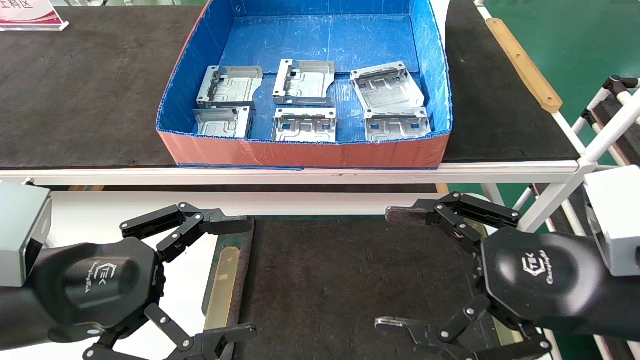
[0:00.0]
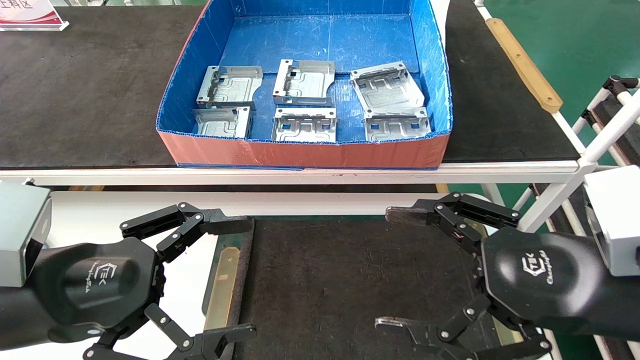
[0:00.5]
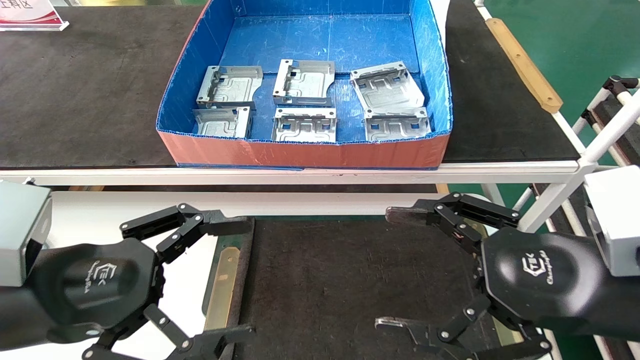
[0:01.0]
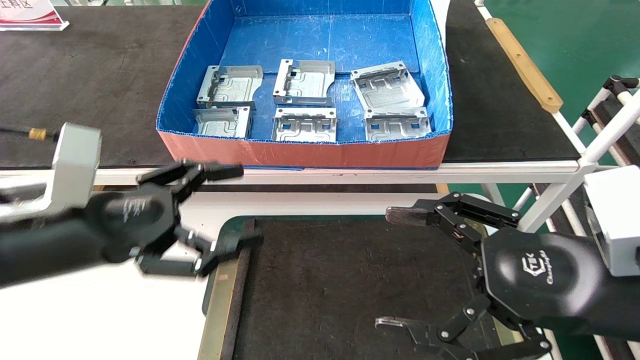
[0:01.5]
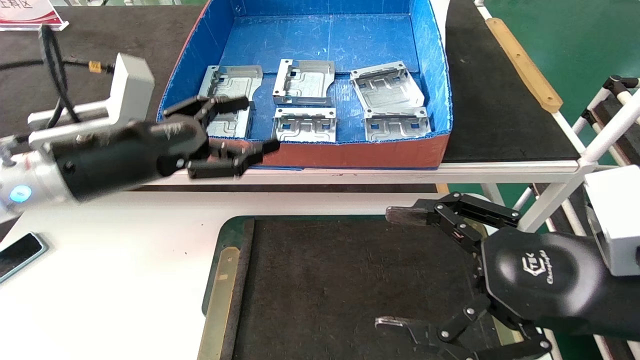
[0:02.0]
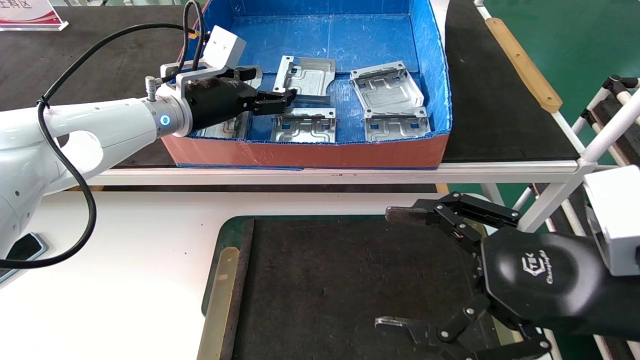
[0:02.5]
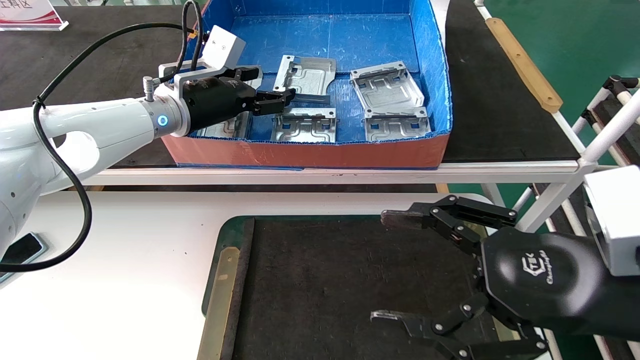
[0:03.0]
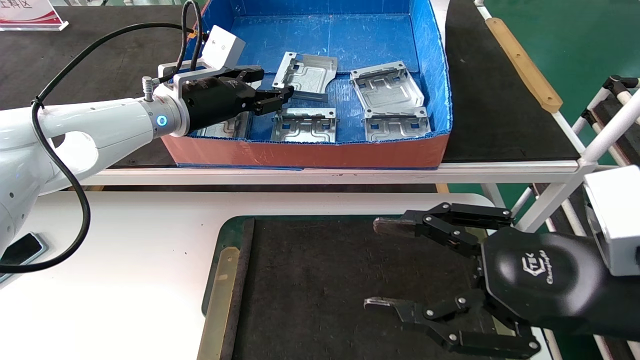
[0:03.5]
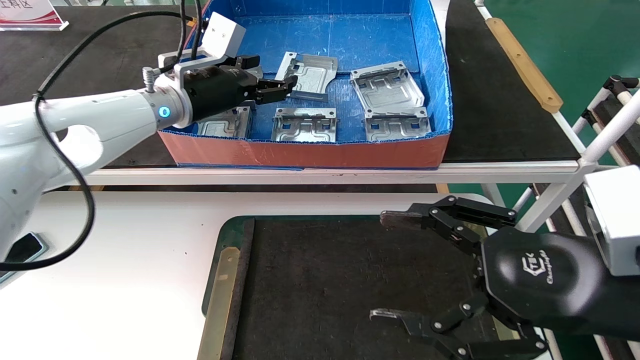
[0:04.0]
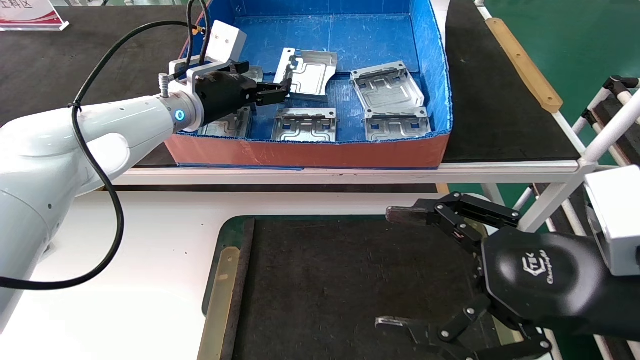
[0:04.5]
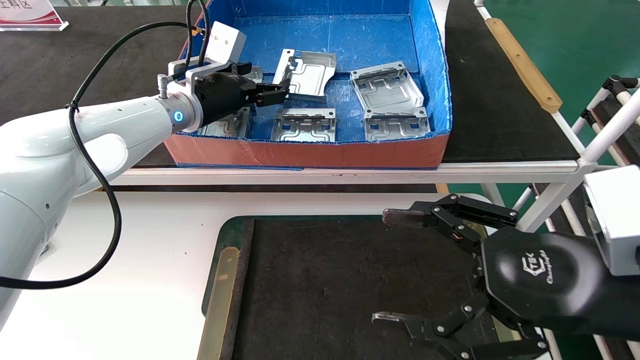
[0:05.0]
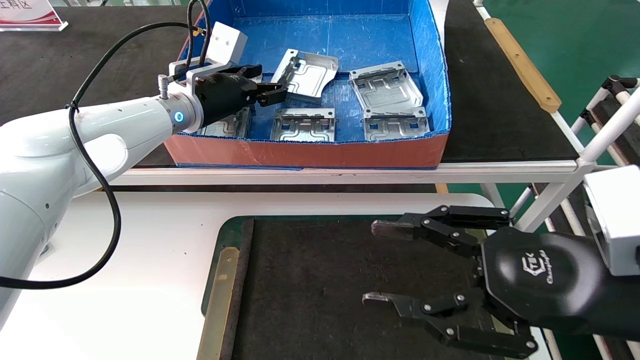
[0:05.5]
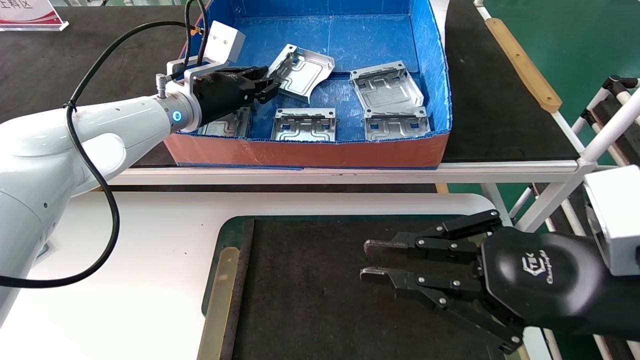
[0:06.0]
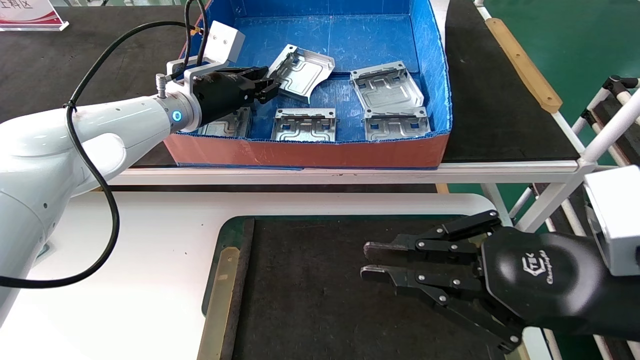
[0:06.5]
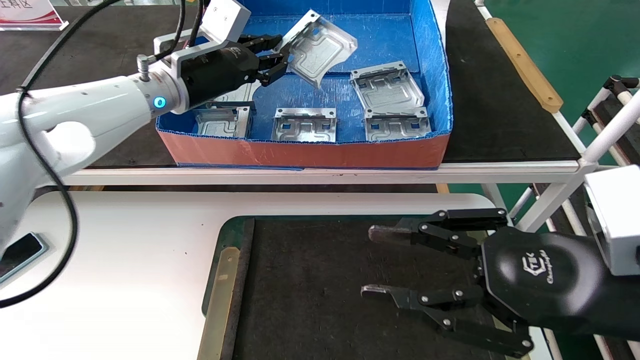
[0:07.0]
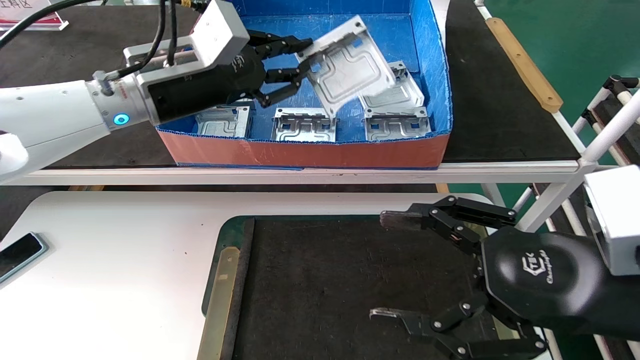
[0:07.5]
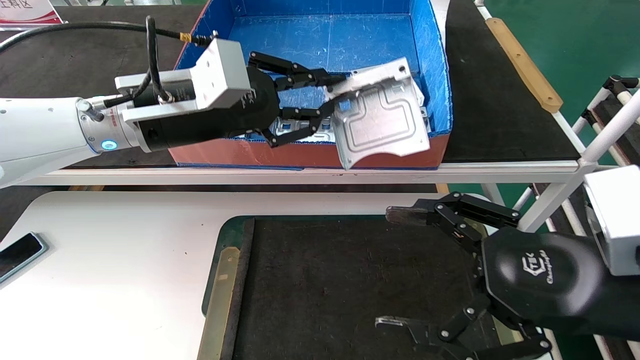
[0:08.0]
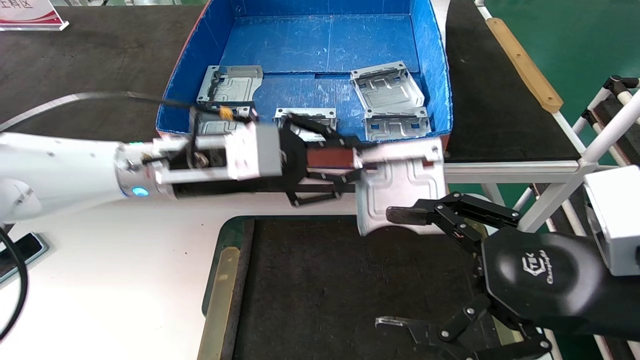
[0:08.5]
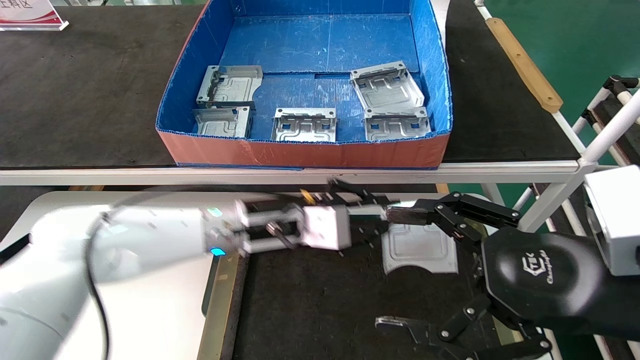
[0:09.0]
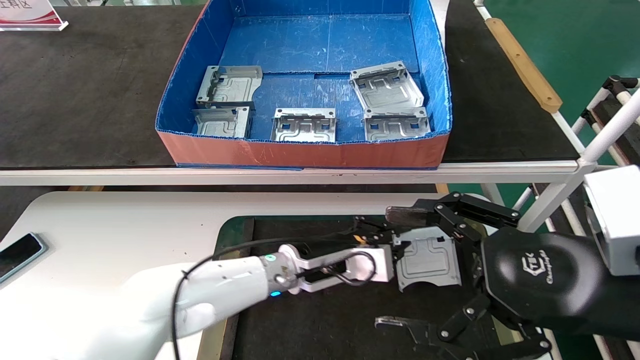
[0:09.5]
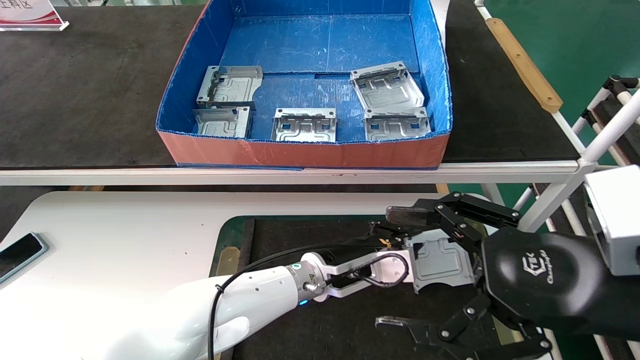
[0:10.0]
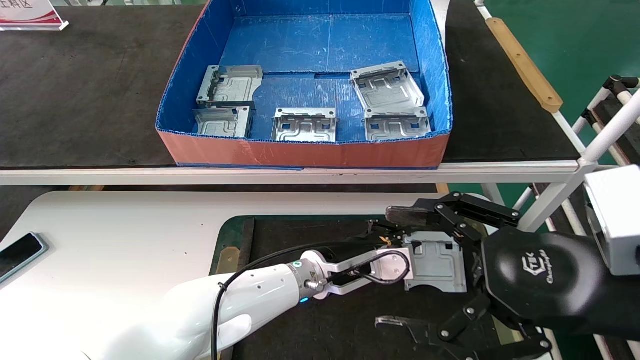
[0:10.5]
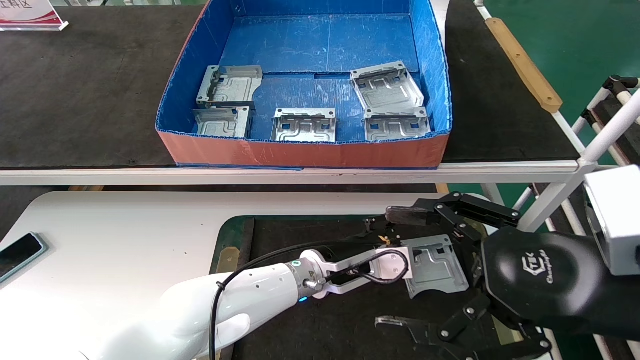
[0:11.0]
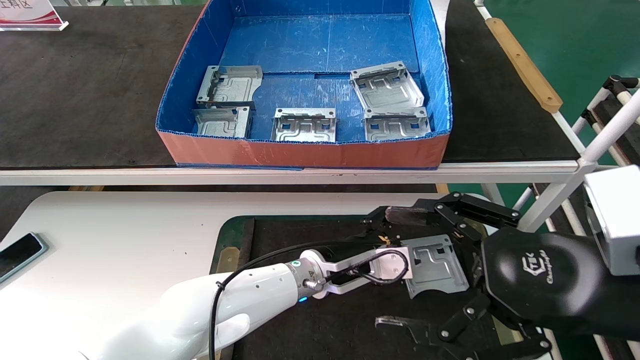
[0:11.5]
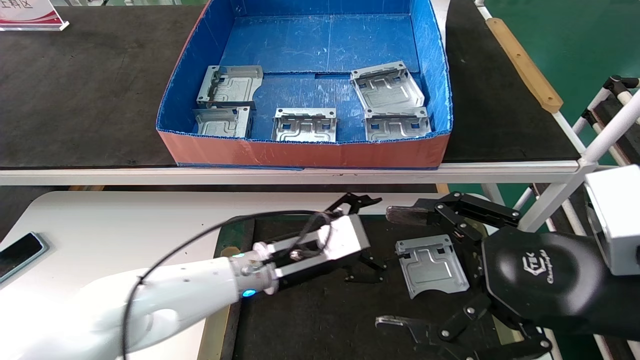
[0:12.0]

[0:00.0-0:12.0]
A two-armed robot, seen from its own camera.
Task of the whole recording: take the accessories out of the box and place them on the table.
Step, 0:01.0 to 0:07.5: Pick up the hard drive bracket from the feeding area.
Step, 0:08.0 to 0:12.0: Place the hard drive bracket into the box.
0:00.0 to 0:02.0: The left gripper is displaced forward and upward by about 15 cm.
0:02.0 to 0:04.0: The left gripper travels forward by approximately 15 cm.
0:04.0 to 0:06.0: The right gripper closes and opens again.
0:06.0 to 0:08.0: The left gripper closes, while the right gripper closes.
0:08.0 to 0:10.0: The left gripper heads downward, backward and to the right, covering roughly 15 cm; the right gripper opens.
0:10.0 to 0:12.0: The left gripper goes approximately 20 cm downward and to the right.
